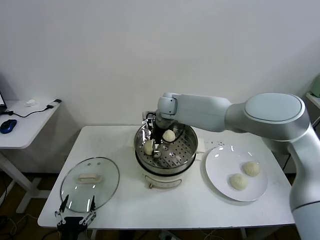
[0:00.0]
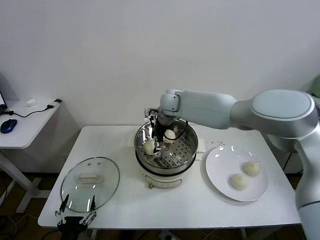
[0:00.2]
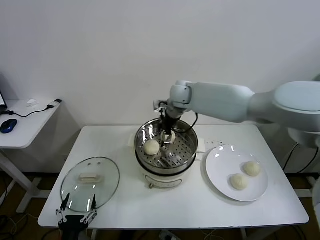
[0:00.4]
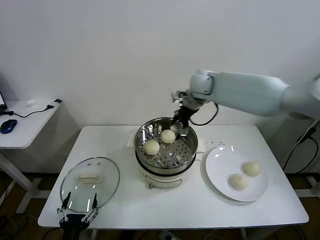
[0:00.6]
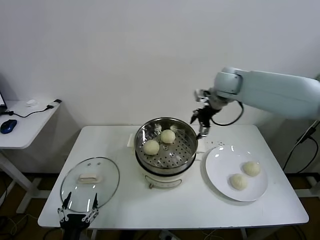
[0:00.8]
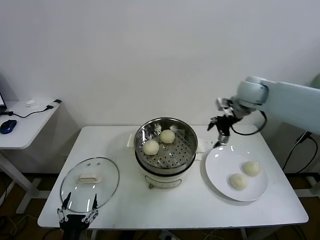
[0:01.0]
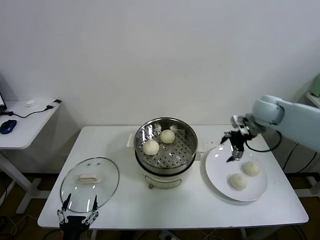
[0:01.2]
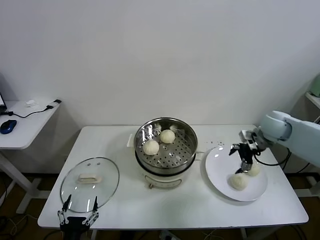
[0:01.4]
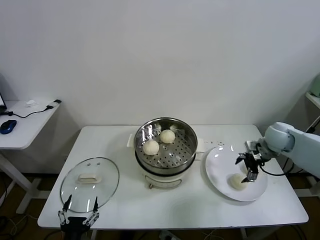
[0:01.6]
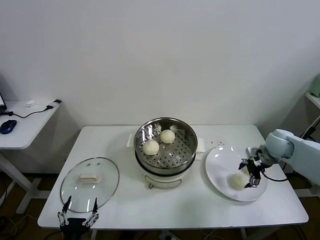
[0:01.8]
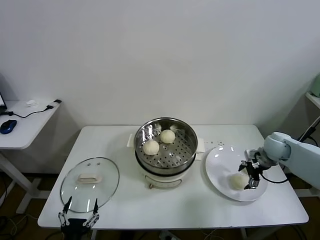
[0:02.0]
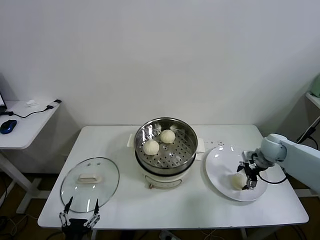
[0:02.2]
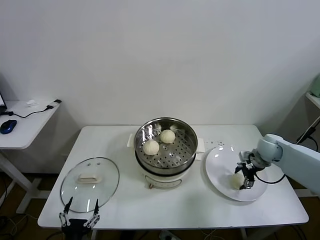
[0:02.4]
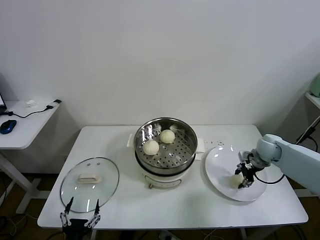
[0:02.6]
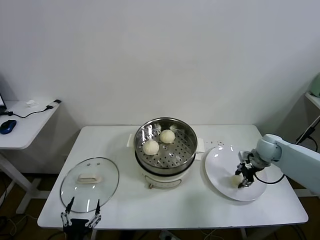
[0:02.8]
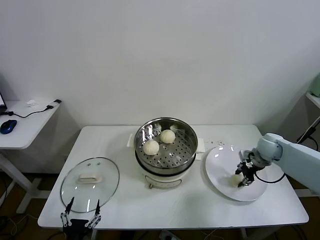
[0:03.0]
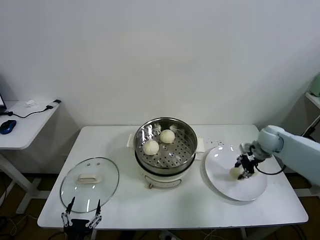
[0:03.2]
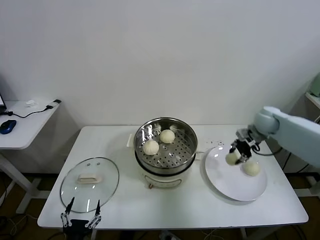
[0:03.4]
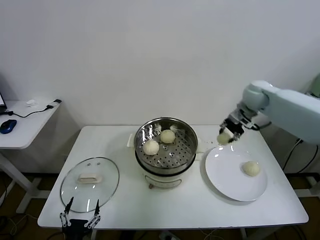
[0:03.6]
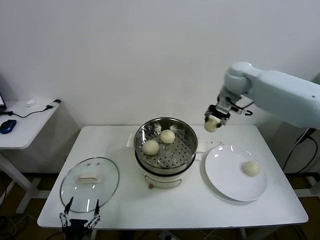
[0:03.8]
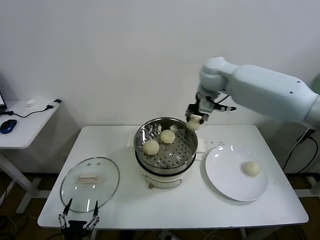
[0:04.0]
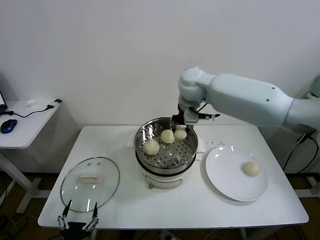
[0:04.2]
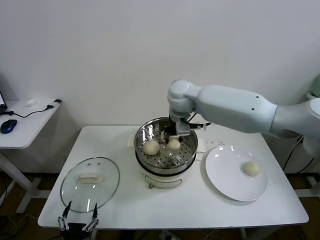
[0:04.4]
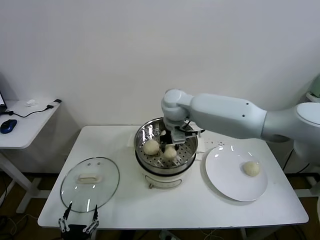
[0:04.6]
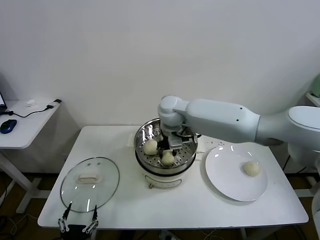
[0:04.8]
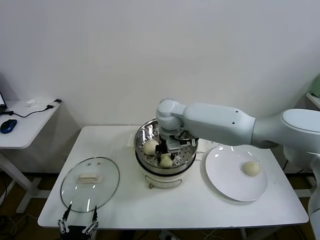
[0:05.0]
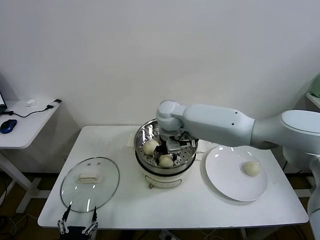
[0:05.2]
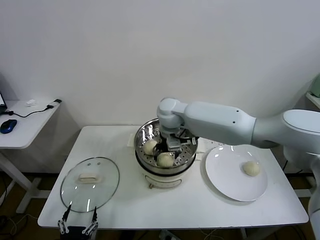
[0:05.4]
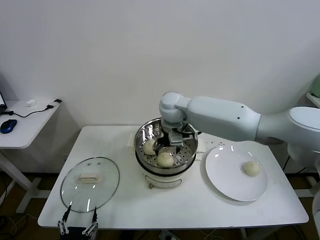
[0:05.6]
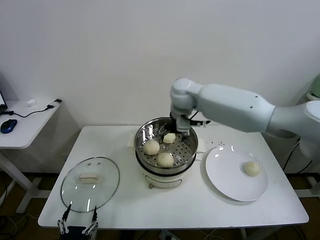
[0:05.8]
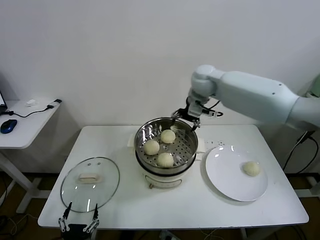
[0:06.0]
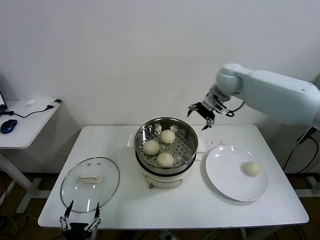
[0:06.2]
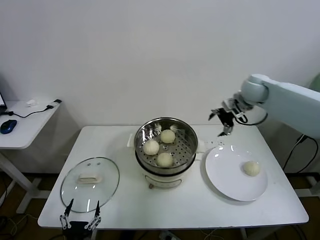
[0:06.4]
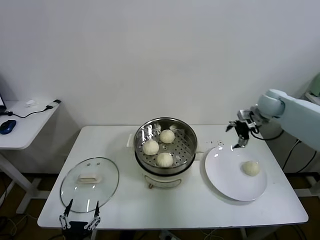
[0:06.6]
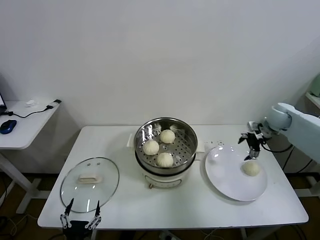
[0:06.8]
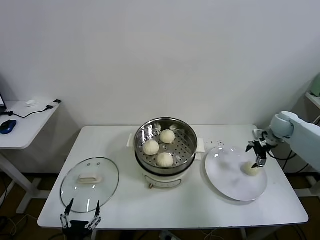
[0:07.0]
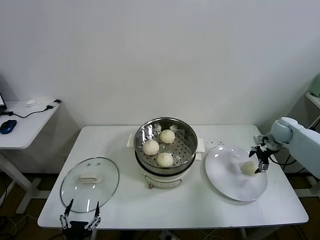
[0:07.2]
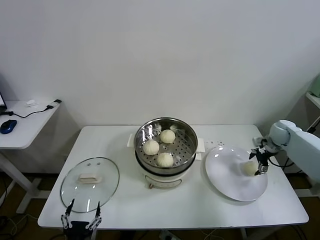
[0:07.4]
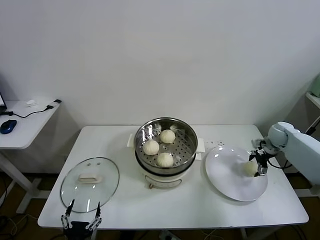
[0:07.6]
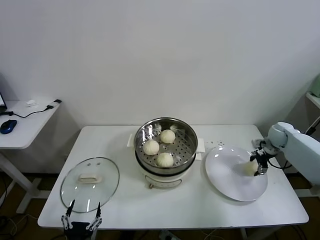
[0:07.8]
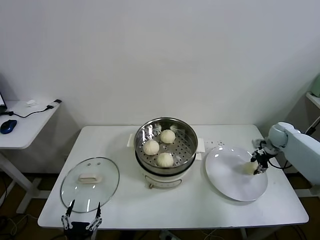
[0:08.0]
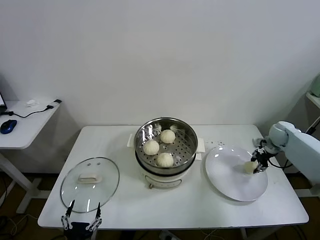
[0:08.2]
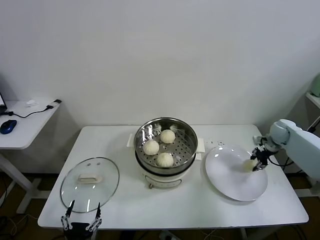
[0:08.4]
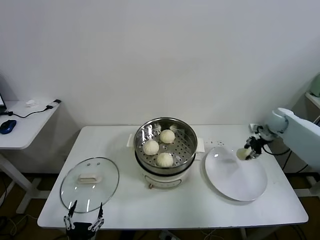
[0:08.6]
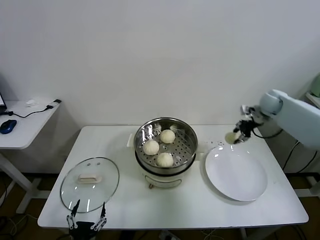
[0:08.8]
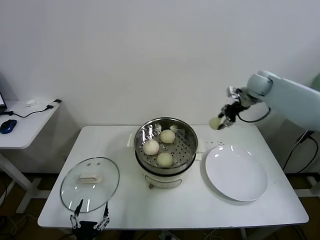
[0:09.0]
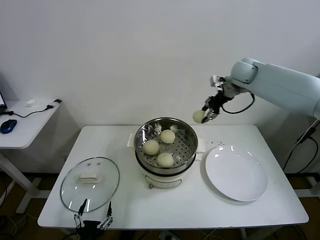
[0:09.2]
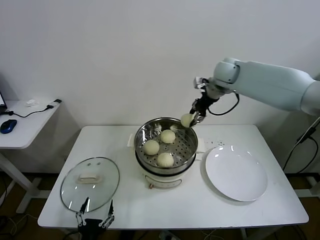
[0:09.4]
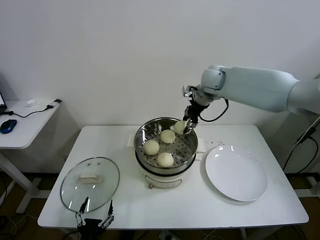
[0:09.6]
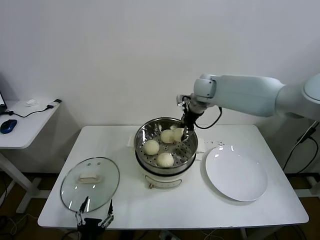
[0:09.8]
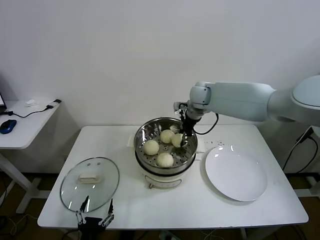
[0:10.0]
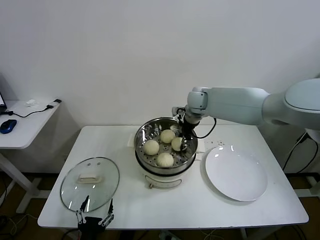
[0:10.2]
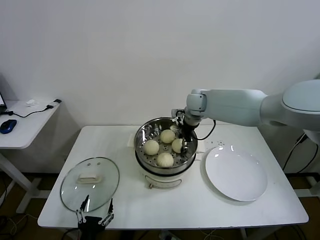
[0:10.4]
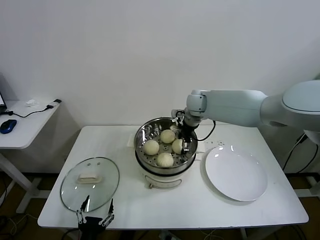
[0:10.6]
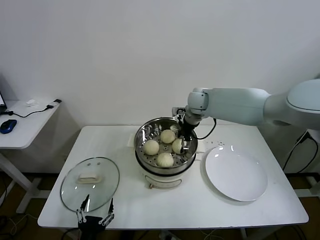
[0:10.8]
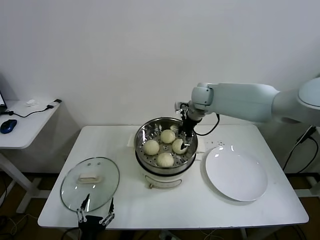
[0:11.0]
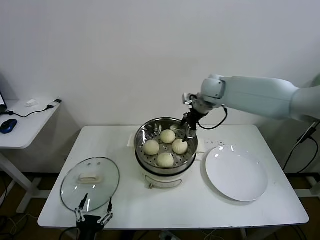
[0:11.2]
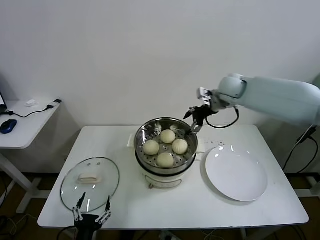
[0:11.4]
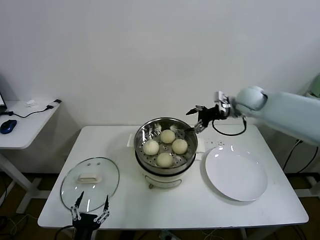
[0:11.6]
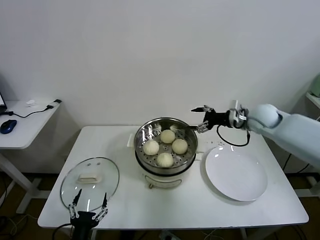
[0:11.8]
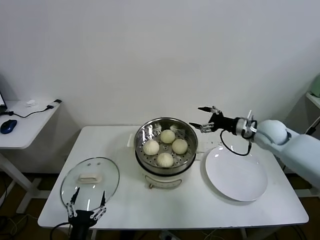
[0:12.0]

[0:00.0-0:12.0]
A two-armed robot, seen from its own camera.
Task of the whole recording: take steamed baozi put them in steamer.
Step, 0.2 to 2.4 s: Grasp the baozi in the plate with right gripper.
Step, 2.6 to 5.4 s: Place the baozi on the steamer with right gripper.
Step, 5.6 to 8.0 s: Grasp the baozi in the plate with right gripper.
Step, 8.2 to 10.6 s: Place the baozi on the steamer with right gripper.
0.0 to 1.6 s: The right gripper moves to the right, roughly 40 cm.
1.6 to 3.0 s: The right gripper shifts about 5 cm downward, and closes.
3.0 to 4.4 s: The right gripper goes some 40 cm to the left and upward.
4.4 to 6.0 s: The right gripper heads to the right and forward, covering approximately 10 cm, and opens.
6.0 to 7.6 s: The right gripper moves to the right and downward, approximately 40 cm.
7.6 to 9.0 s: The right gripper heads upward and to the left, covering roughly 25 cm, and closes.
9.0 to 10.4 s: The right gripper goes approximately 20 cm to the left.
10.4 to 12.0 s: The right gripper heads to the right and backward, covering approximately 25 cm, and opens its fingers.

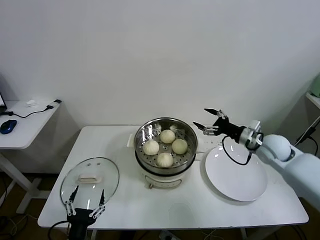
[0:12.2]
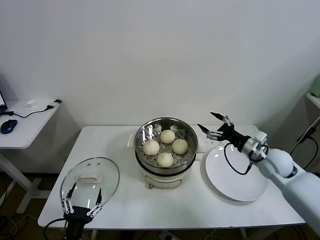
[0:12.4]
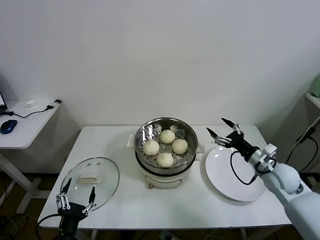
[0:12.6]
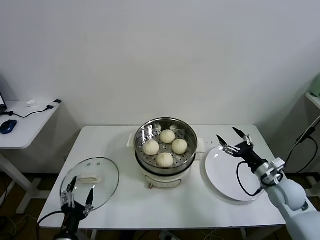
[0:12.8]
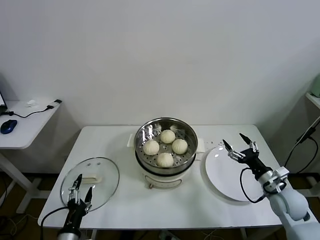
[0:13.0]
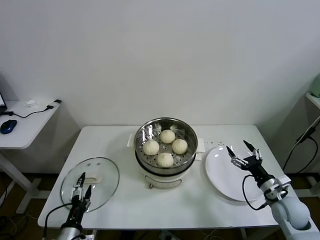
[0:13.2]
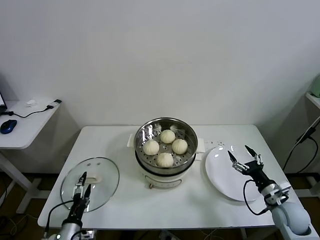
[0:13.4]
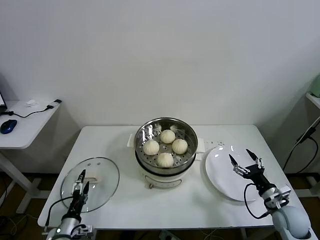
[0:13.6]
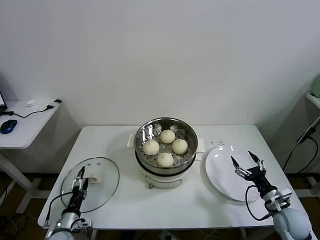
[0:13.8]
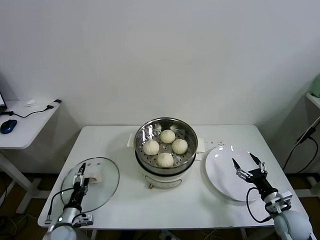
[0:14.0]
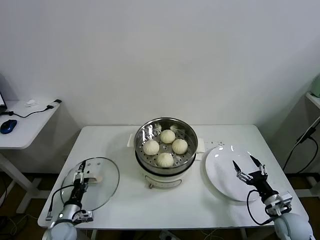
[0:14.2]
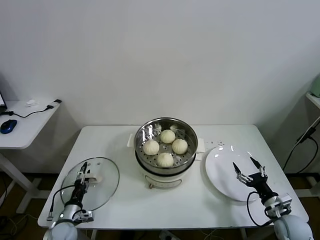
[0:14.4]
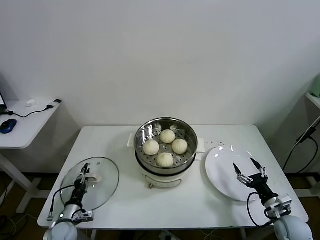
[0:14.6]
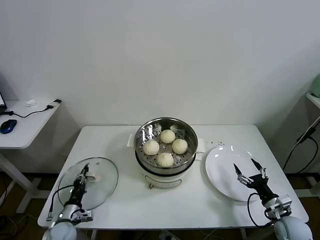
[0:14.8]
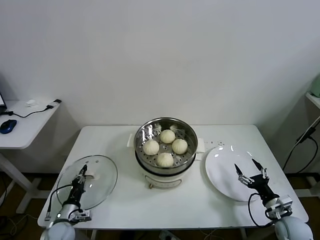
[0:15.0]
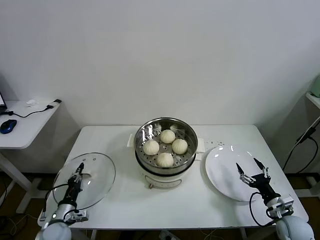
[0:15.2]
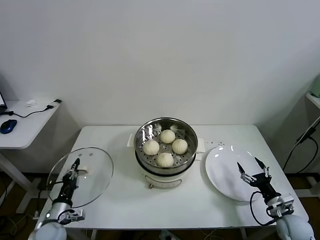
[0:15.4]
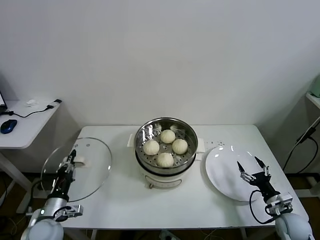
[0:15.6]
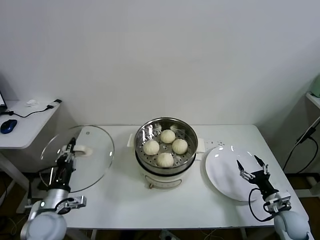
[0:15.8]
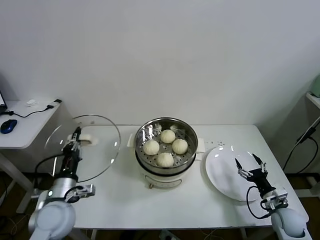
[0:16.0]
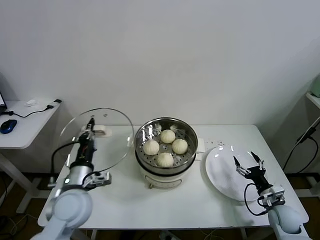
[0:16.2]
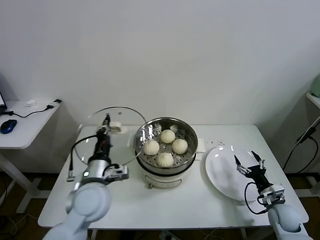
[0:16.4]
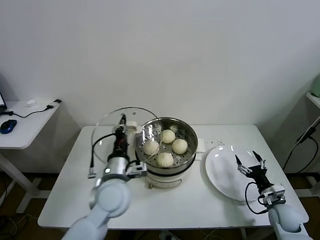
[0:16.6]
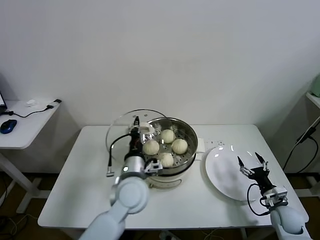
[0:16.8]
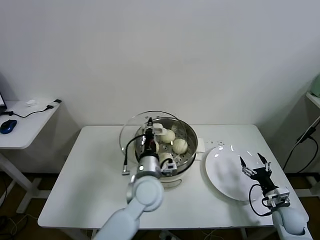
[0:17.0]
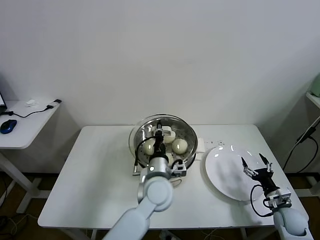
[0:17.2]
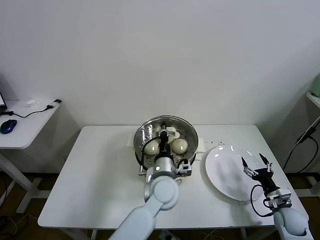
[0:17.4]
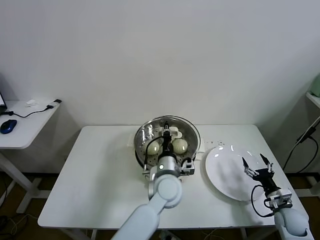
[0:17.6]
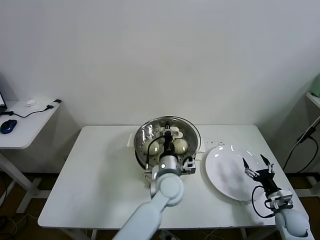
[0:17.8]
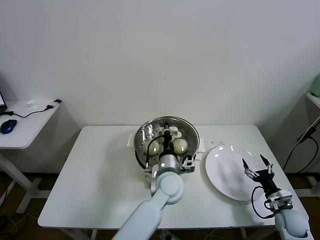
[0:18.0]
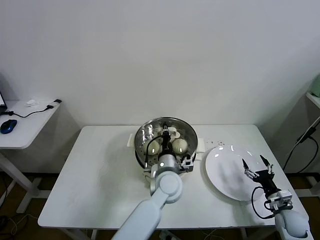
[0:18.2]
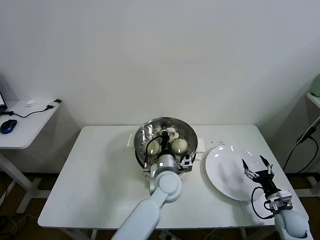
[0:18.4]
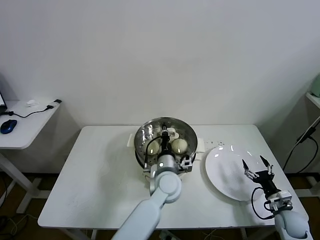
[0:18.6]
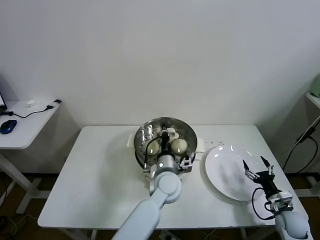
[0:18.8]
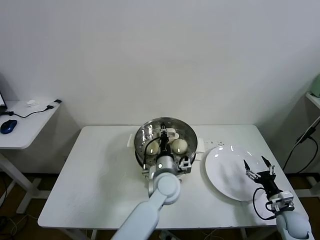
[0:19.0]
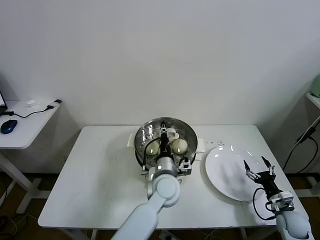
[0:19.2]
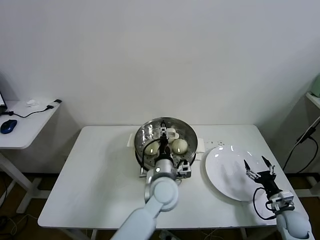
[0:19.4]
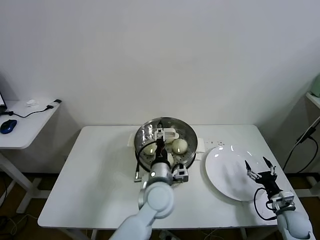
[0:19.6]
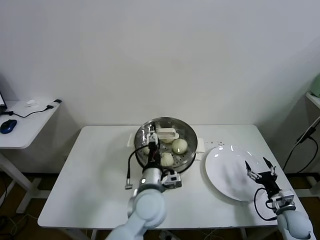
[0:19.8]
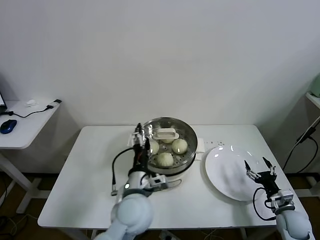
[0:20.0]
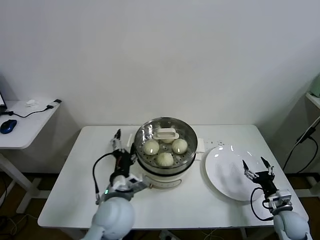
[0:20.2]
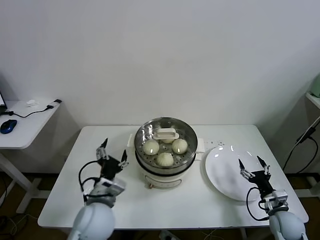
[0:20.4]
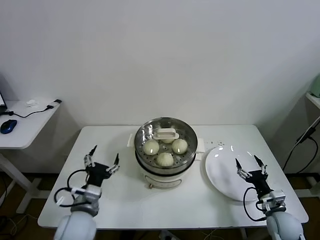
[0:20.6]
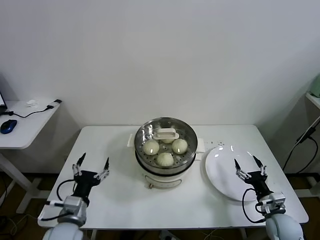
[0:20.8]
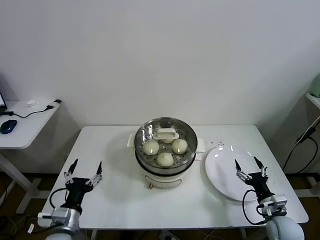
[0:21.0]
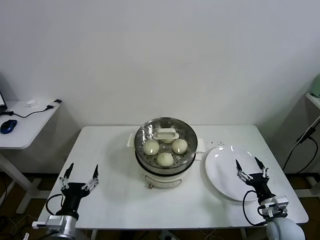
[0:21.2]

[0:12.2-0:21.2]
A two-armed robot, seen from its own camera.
Task of the whole recording: take steamed baozi put them in steamer.
Step, 12.2 to 14.8 s: Grasp the pot lid with left gripper.
Step, 15.0 to 19.4 s: Place the pot lid on the steamer with left gripper.
12.2 to 13.8 s: The left gripper is displaced forward, downward and to the left by approximately 20 cm. The right gripper moves backward and downward, roughly 25 cm.
13.8 to 15.2 s: The left gripper closes.
15.2 to 16.6 s: The left gripper travels upward and to the right by about 30 cm.
16.6 to 18.2 s: The left gripper goes roughly 15 cm to the right.
18.2 to 19.8 s: The left gripper moves backward, about 5 cm, and opens.
19.8 to 21.2 s: The right gripper moves to the left, roughly 5 cm. Meanwhile the left gripper is displaced to the left and backward by some 30 cm.

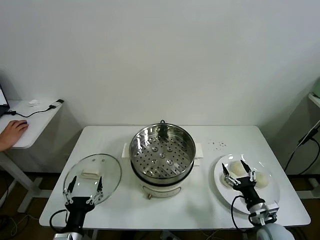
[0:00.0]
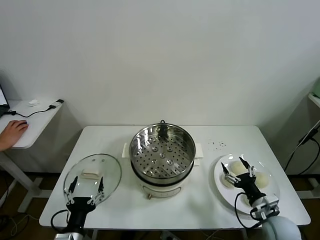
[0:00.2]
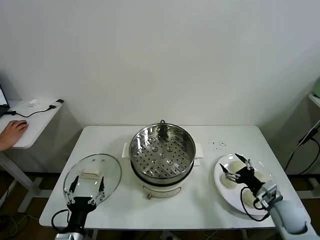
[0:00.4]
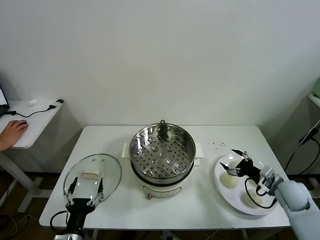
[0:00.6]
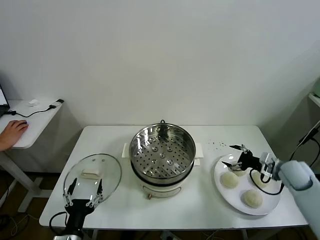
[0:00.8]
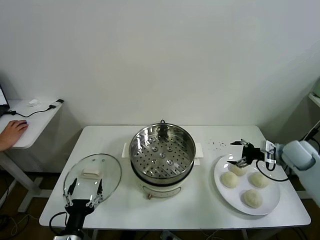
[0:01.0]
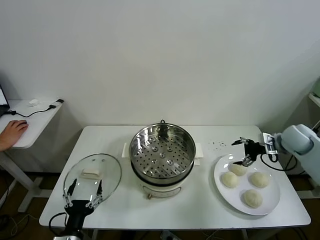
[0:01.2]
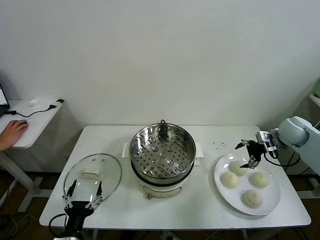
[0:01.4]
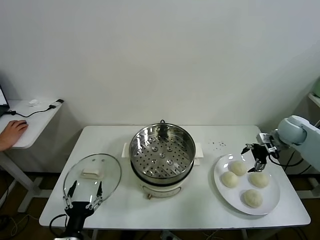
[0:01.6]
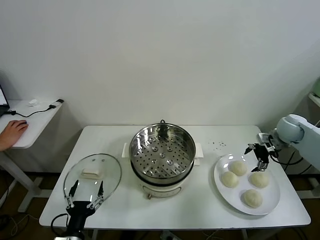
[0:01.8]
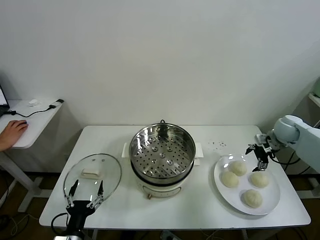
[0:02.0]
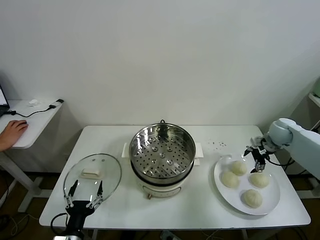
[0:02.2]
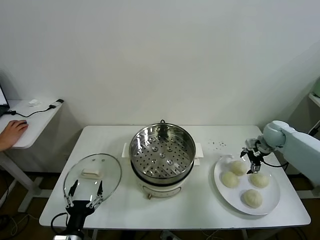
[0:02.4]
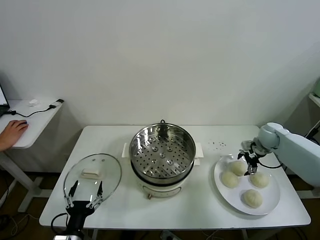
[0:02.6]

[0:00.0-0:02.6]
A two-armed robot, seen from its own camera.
Task of the whole recording: take steamed baozi put them in steamer.
1.2 to 2.6 s: The right gripper travels downward and forward by some 10 cm.
